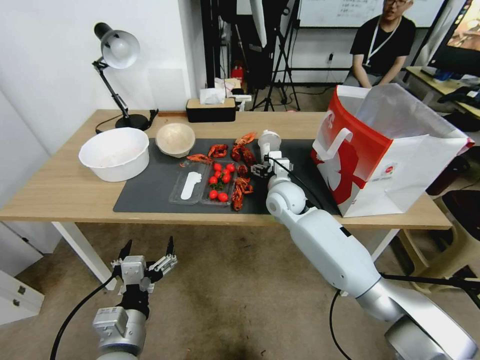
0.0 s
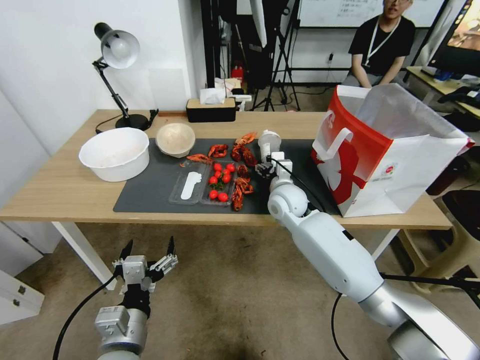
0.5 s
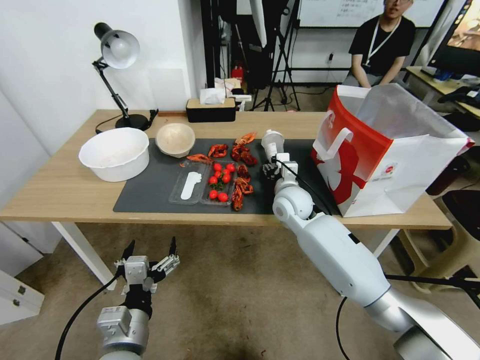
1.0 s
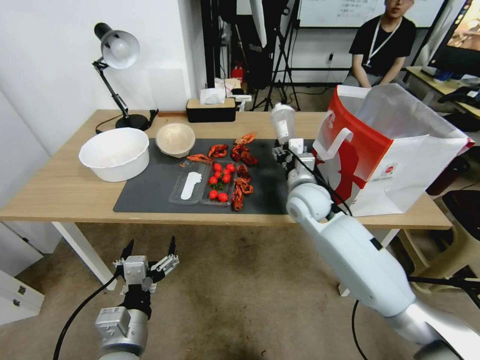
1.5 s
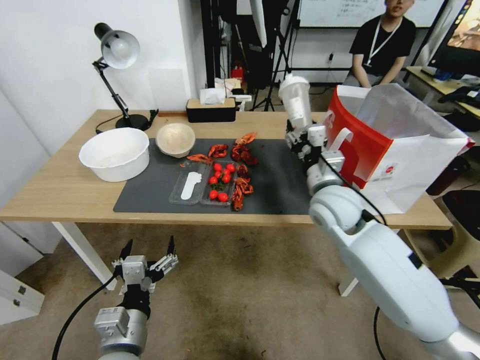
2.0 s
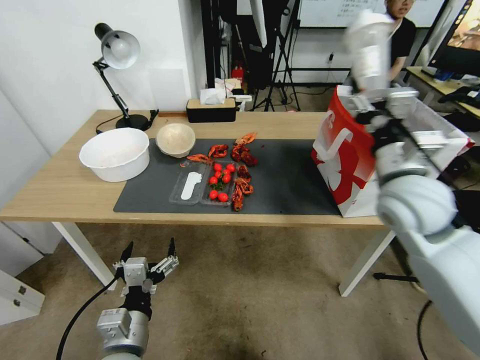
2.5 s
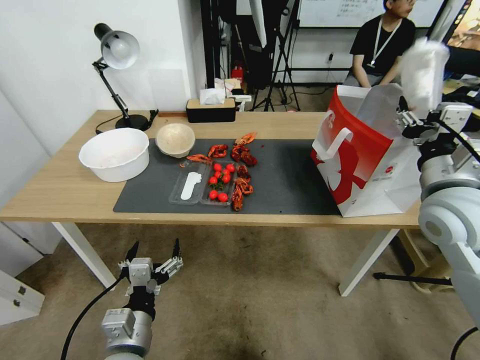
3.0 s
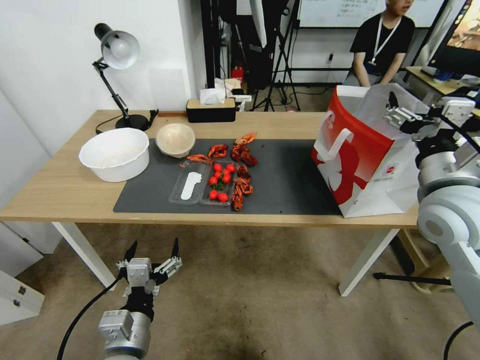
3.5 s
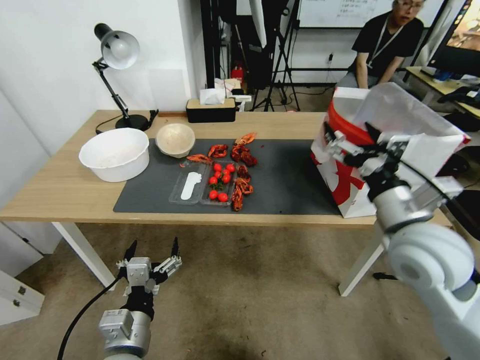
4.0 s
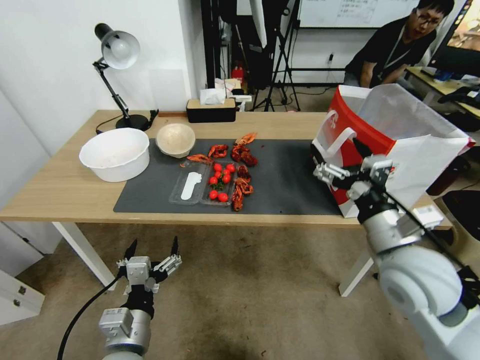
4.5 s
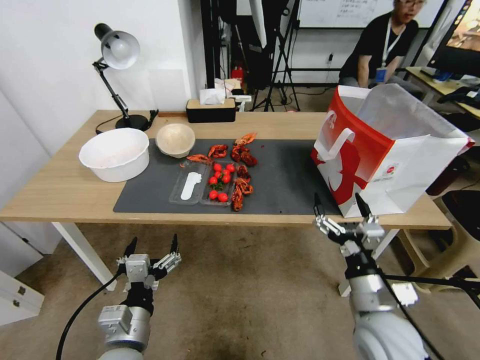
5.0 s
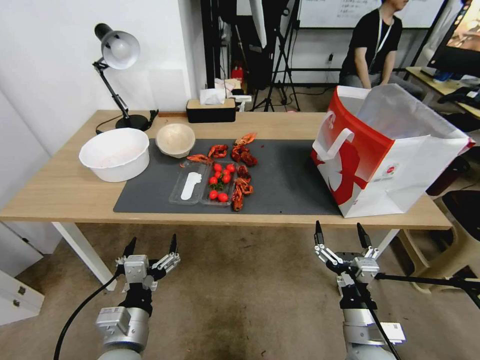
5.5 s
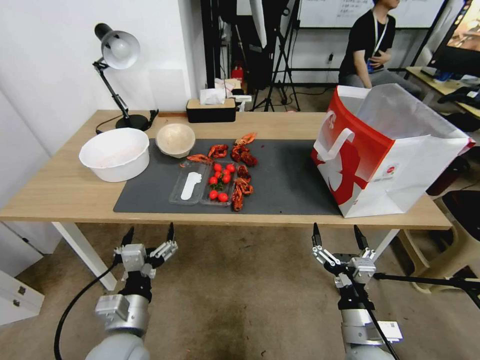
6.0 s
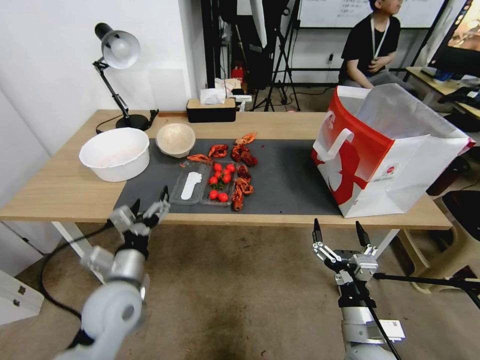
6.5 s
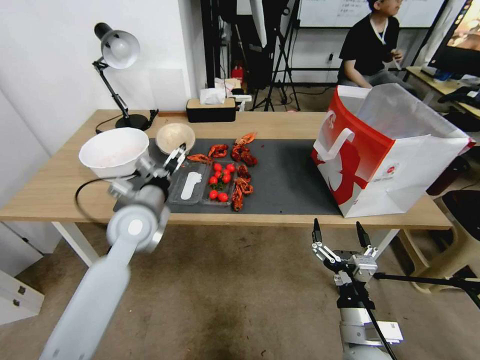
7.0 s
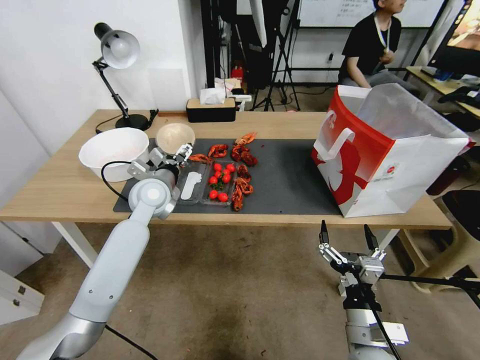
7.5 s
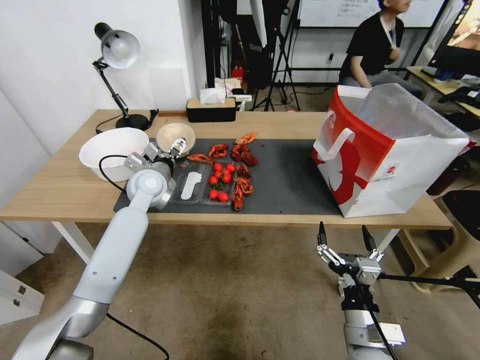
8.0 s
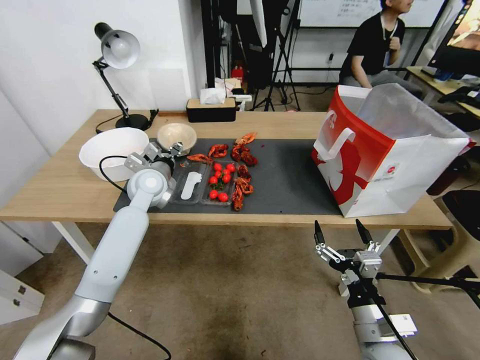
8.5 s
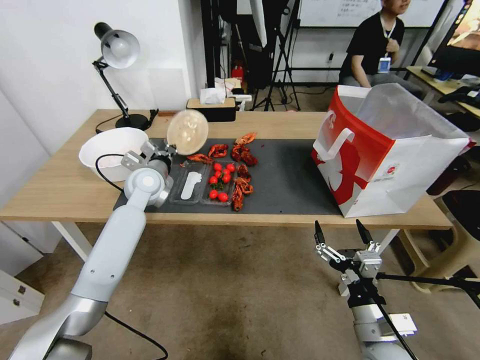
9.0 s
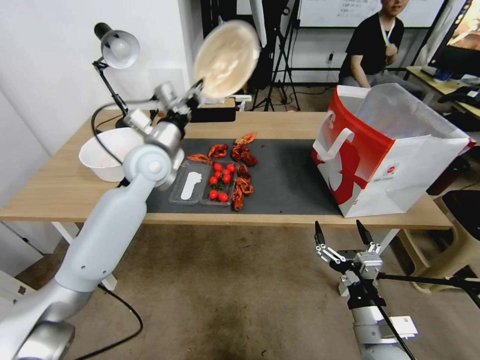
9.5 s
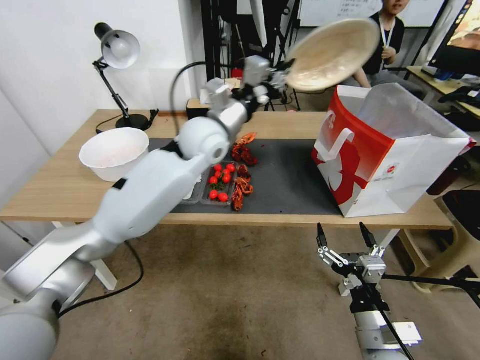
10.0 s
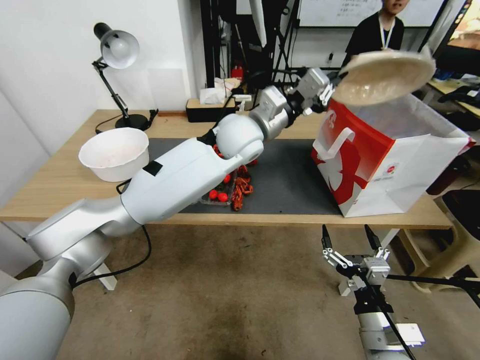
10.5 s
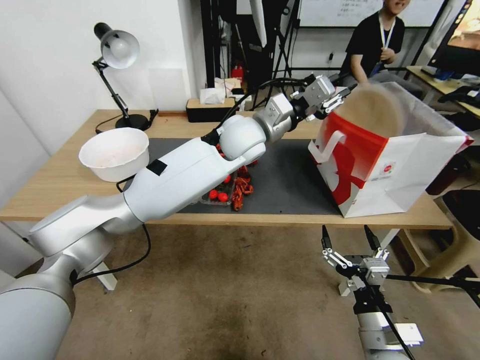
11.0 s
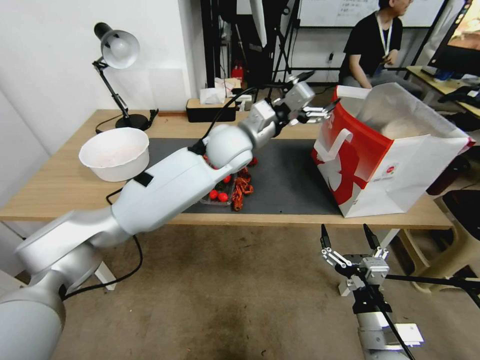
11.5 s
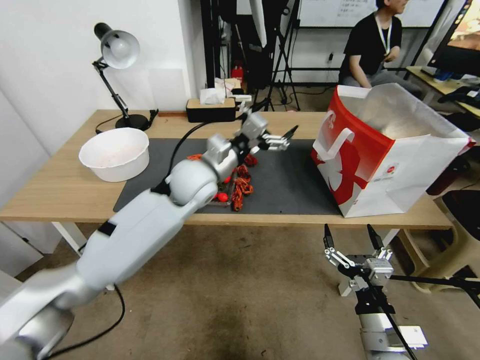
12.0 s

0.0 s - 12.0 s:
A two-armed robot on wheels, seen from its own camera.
0.0 s - 2.0 s: The right gripper heads backward, to the right and upward, covering some 15 cm, and closes its fingers.
2.0 s - 4.0 s: The right gripper heads backward, to the right and upward, covering roughly 15 cm, and opens its fingers.
4.0 s - 6.0 s: The right gripper shifts approximately 25 cm downward and backward.
6.0 s - 8.0 s: The left gripper travels forward by about 35 cm.
8.0 s - 10.0 s: The left gripper moves upward and to the right, some 20 cm, and closes up.
10.0 s - 12.0 s: The left gripper shifts approximately 5 cm downward, goes to the right and returns, about 10 cm each way, and opens its fingers.

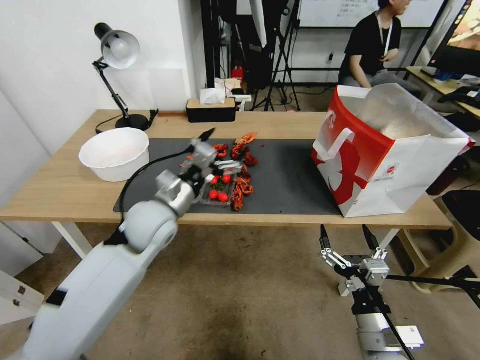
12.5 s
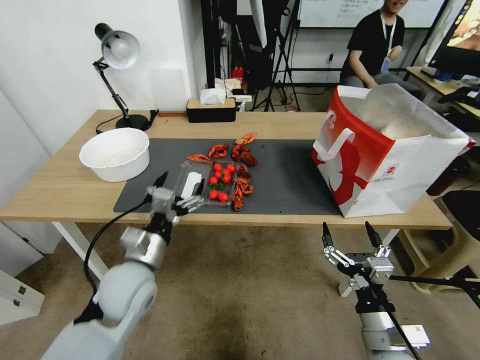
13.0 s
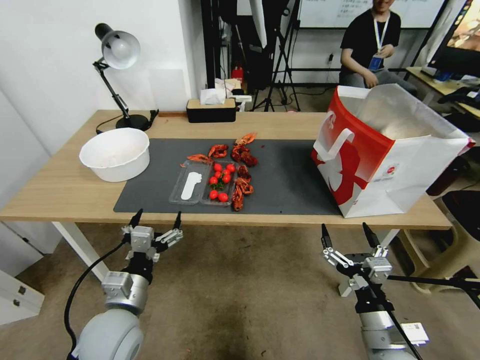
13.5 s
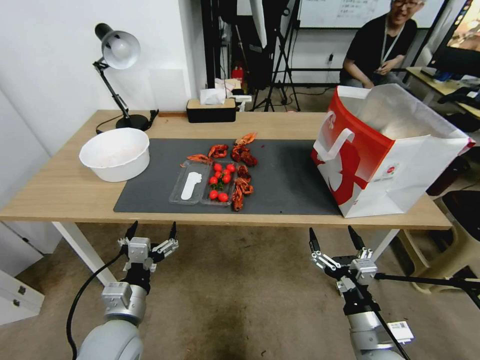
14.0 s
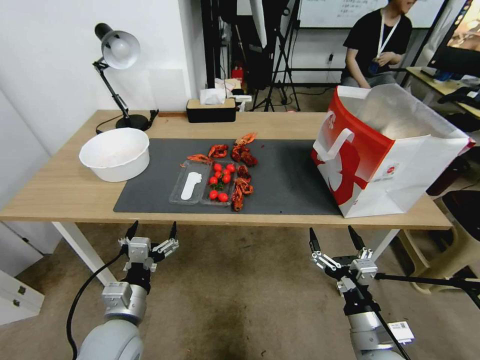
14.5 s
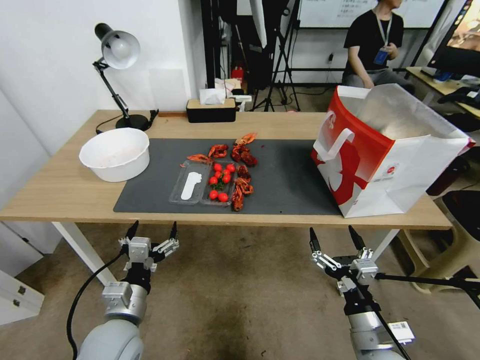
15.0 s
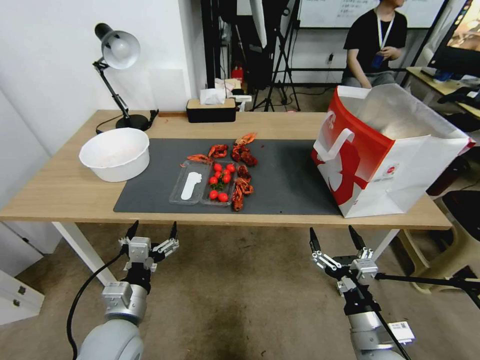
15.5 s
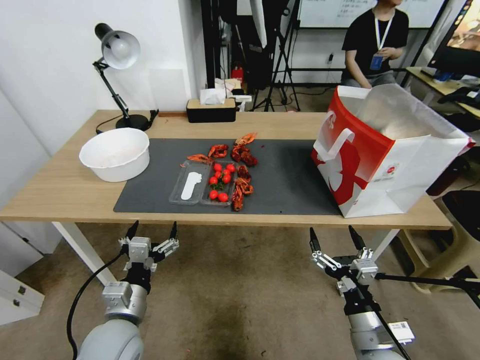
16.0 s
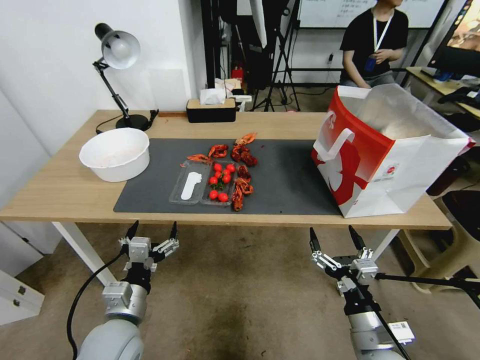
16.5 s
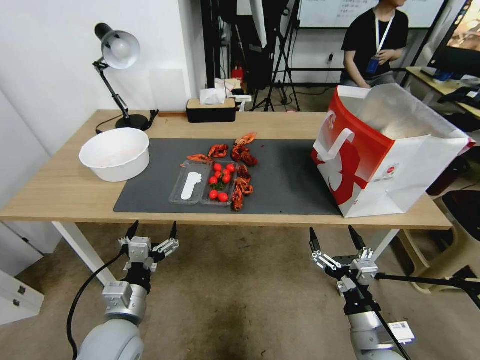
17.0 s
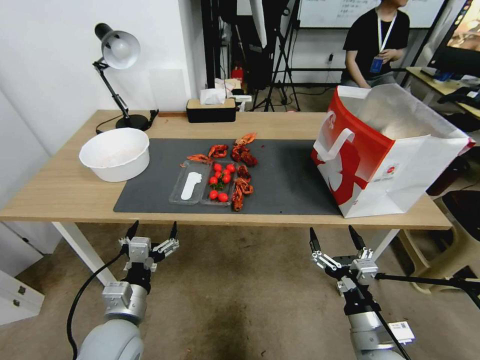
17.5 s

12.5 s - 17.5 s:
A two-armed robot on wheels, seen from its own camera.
12.5 s - 15.0 s: The left gripper travels backward and downward by some 20 cm.
15.0 s - 17.5 s: Both grippers stay about where they are.

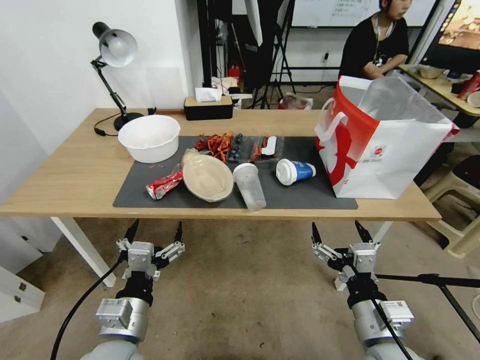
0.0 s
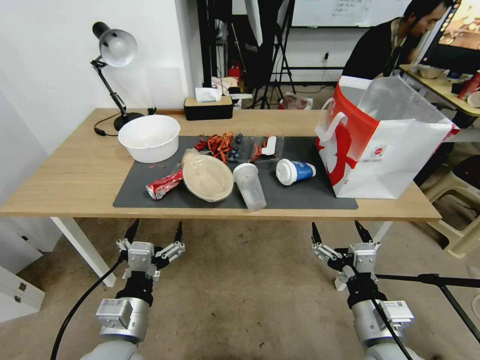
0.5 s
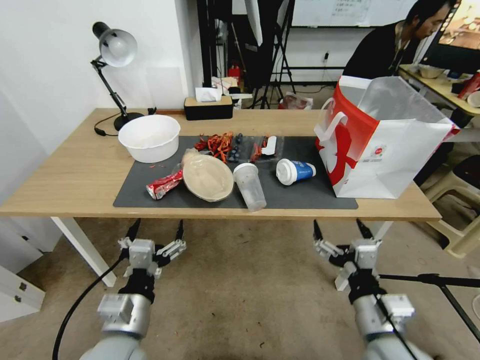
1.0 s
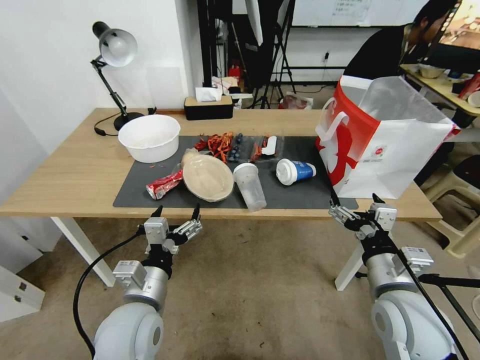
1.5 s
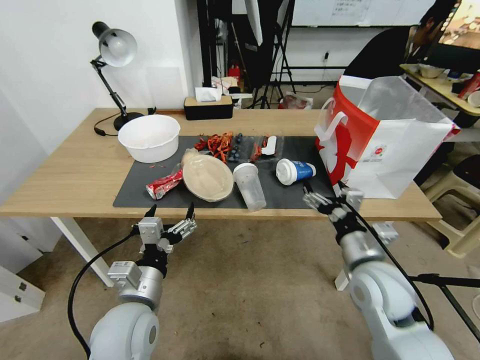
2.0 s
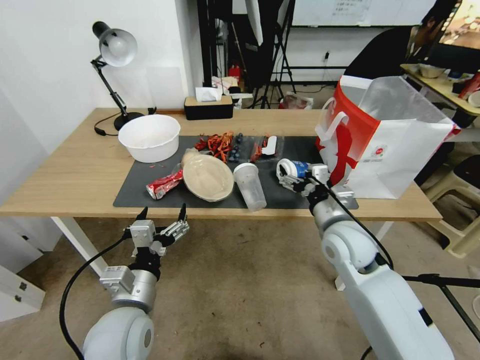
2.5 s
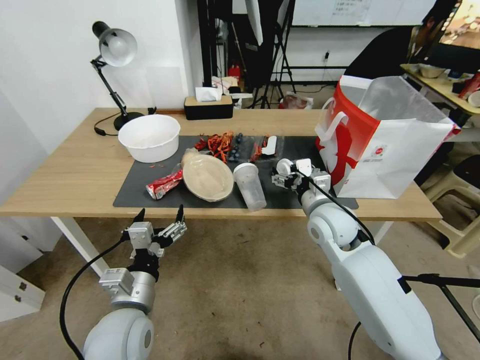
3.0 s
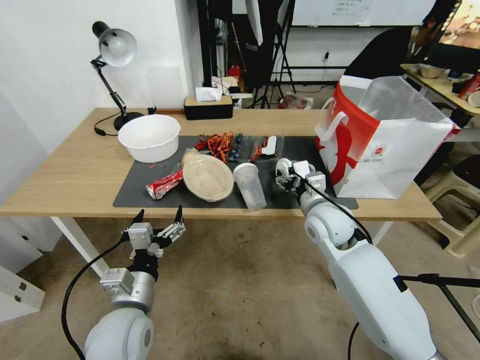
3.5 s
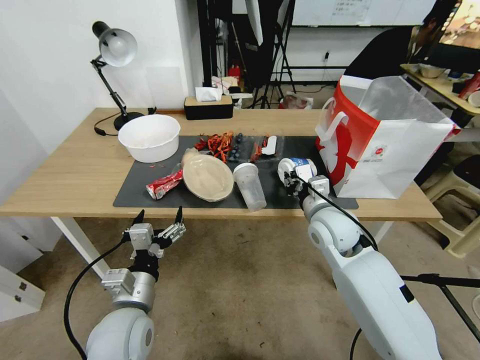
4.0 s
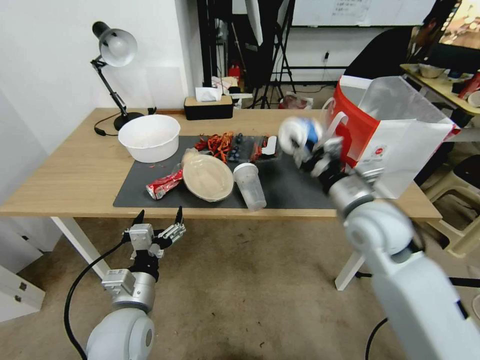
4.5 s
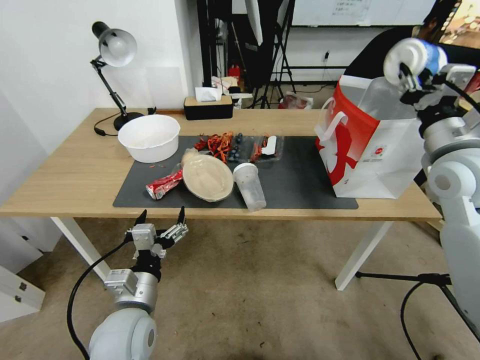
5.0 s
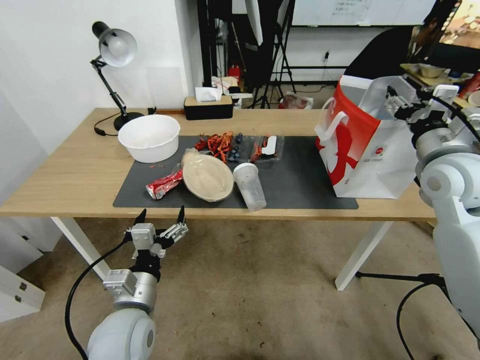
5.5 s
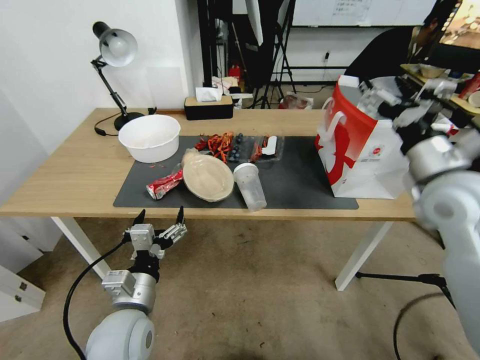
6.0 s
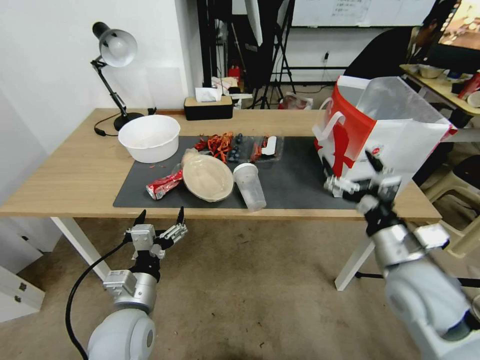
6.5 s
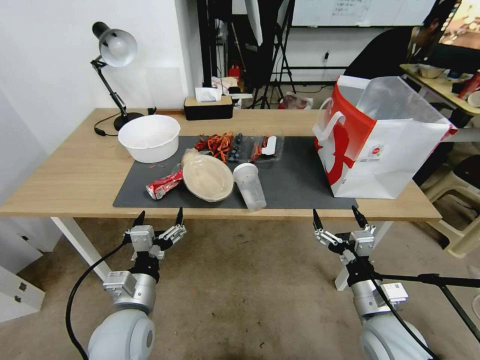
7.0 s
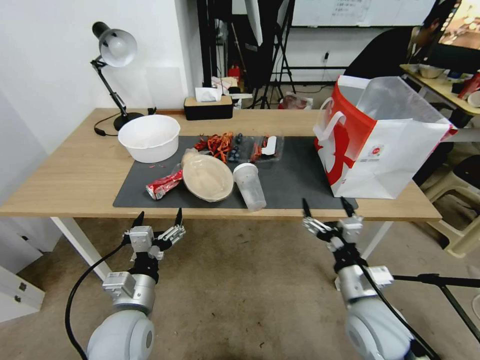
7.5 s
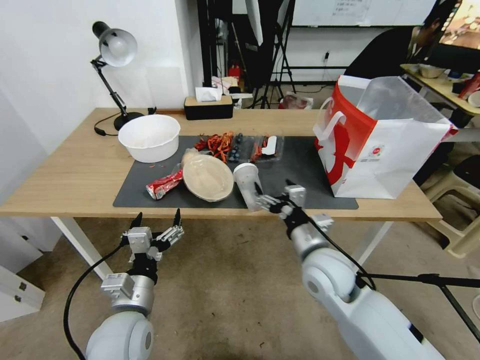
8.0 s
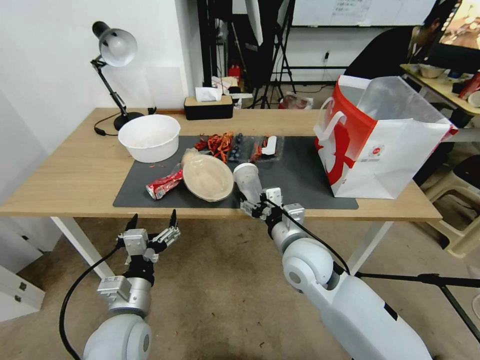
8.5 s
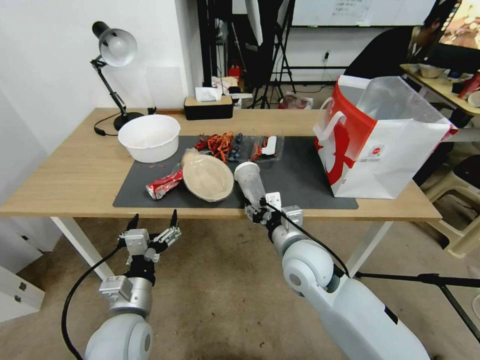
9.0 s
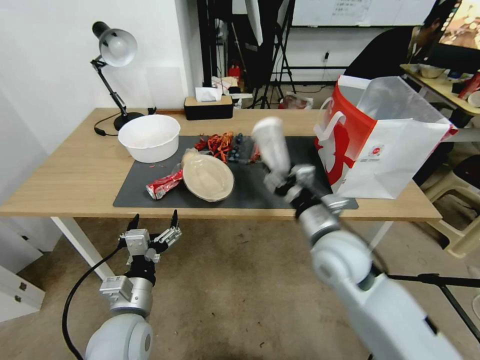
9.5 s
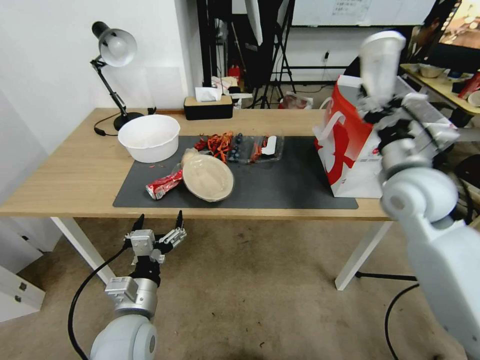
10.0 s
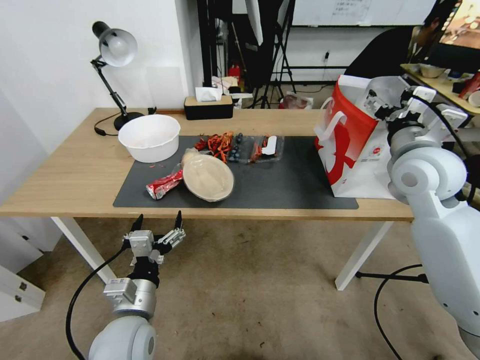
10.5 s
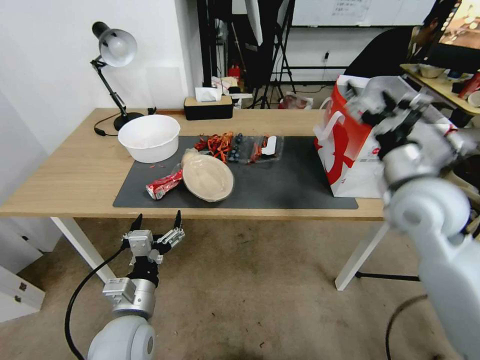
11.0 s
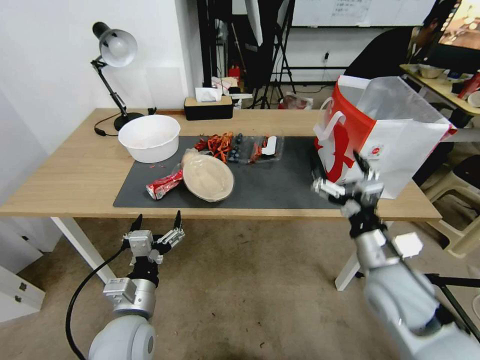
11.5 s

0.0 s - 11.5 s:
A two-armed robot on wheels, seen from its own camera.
2.0 s - 4.0 s: The right gripper is displaced forward and to the left by some 15 cm, and closes.
4.0 s - 6.0 s: The right gripper is displaced upward and to the right by about 20 cm, and opens up.
6.0 s - 7.5 s: The right gripper travels downward, backward and to the left by some 25 cm.
7.5 s - 9.5 s: The right gripper heads forward, upward and to the left, covering approximately 15 cm, and closes up.
9.5 s - 11.5 s: The right gripper moves to the right and backward, some 10 cm, goes upward and returns, about 15 cm each way, and opens.
